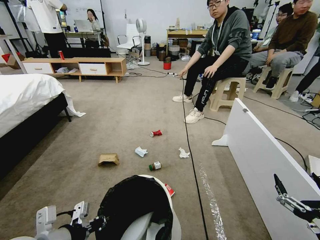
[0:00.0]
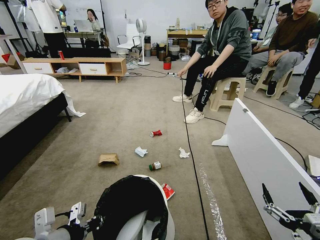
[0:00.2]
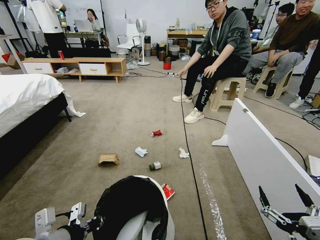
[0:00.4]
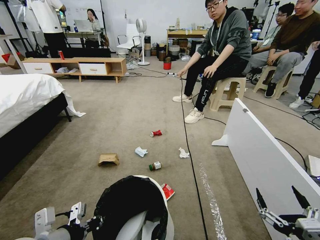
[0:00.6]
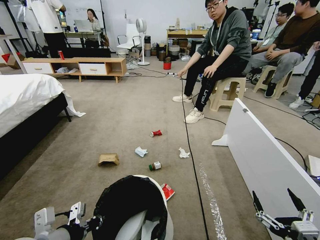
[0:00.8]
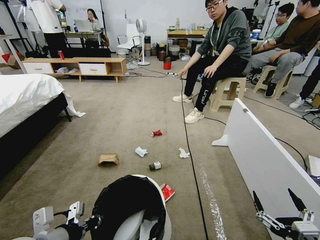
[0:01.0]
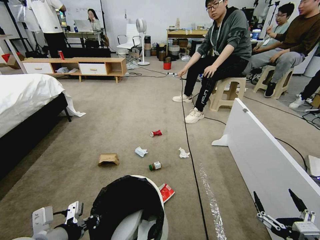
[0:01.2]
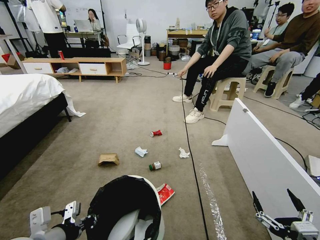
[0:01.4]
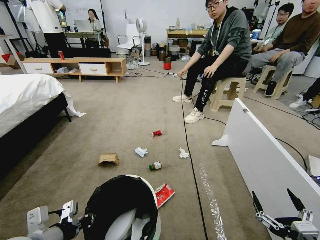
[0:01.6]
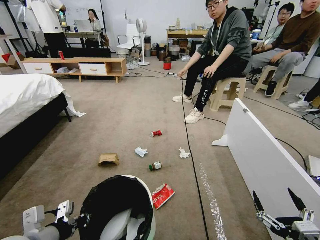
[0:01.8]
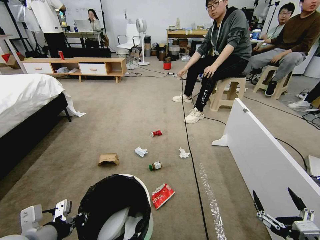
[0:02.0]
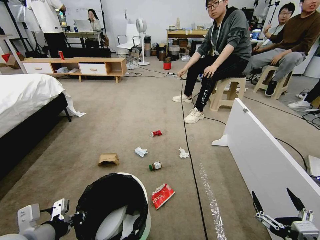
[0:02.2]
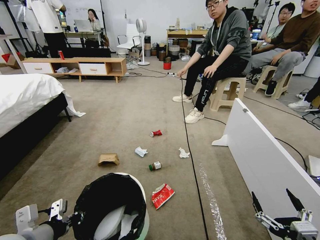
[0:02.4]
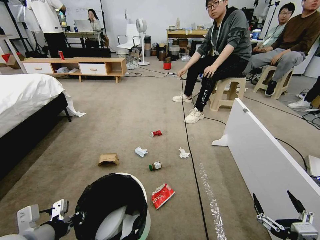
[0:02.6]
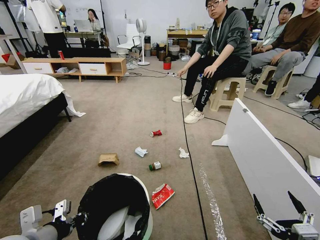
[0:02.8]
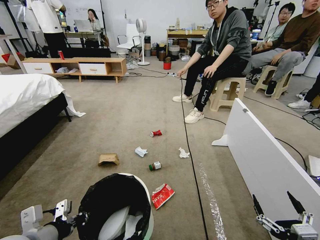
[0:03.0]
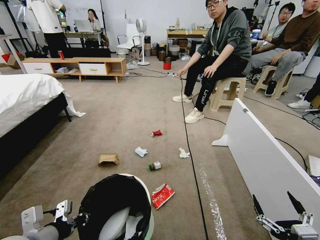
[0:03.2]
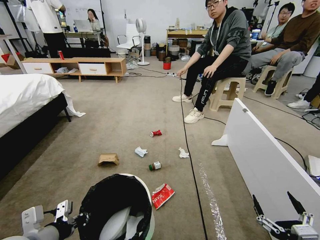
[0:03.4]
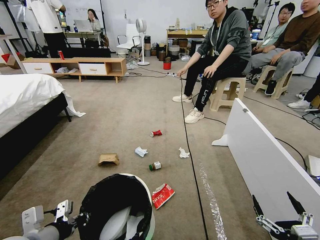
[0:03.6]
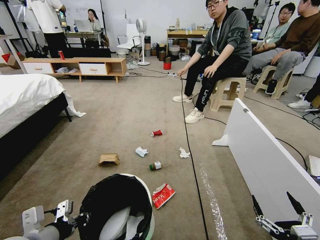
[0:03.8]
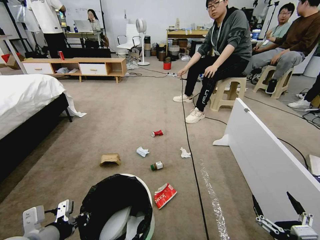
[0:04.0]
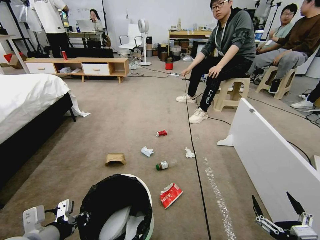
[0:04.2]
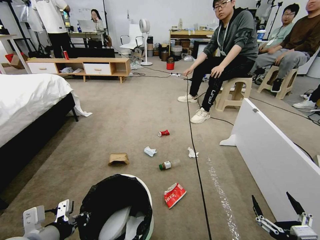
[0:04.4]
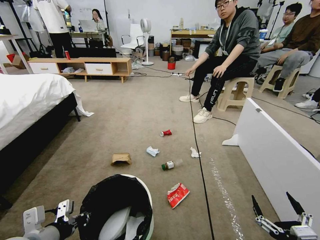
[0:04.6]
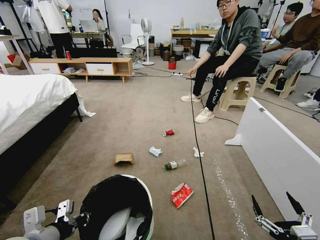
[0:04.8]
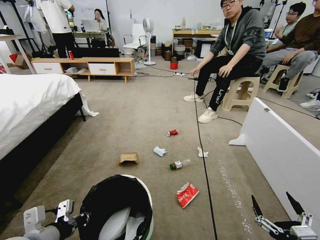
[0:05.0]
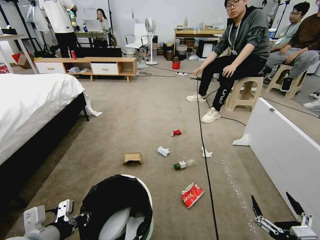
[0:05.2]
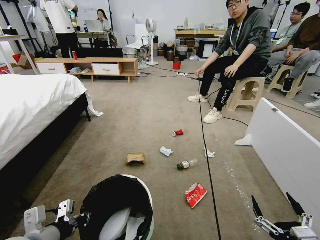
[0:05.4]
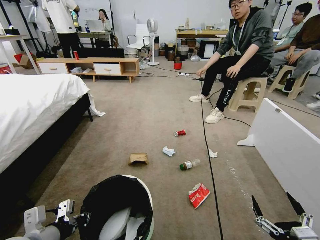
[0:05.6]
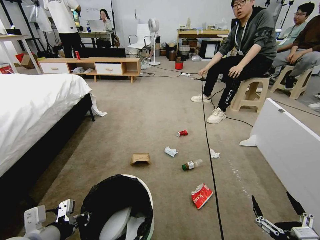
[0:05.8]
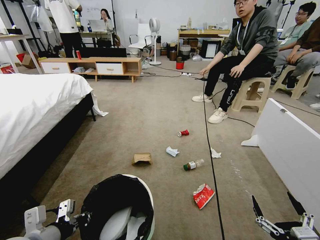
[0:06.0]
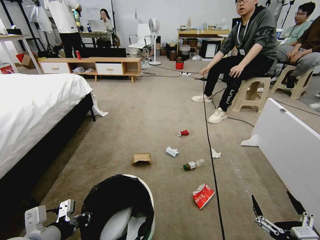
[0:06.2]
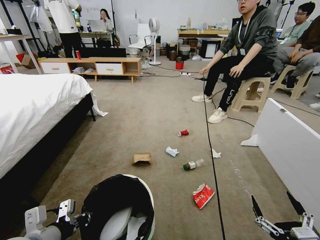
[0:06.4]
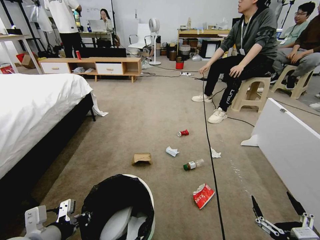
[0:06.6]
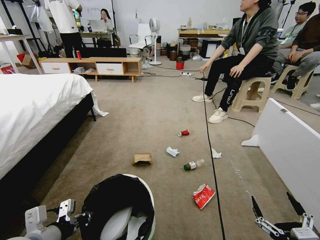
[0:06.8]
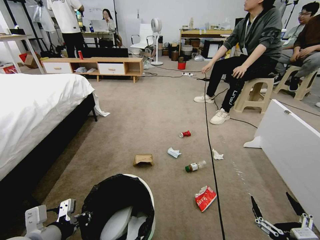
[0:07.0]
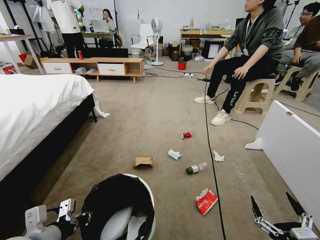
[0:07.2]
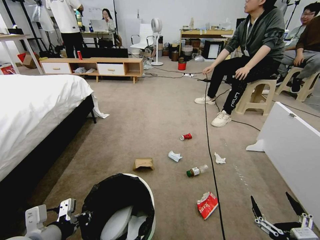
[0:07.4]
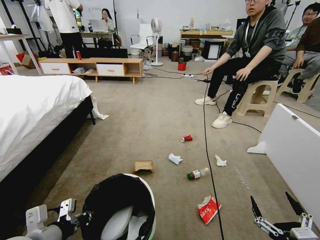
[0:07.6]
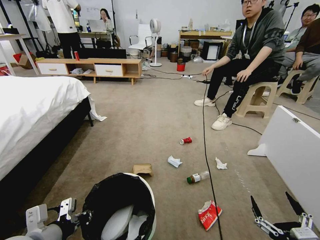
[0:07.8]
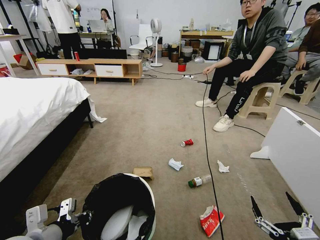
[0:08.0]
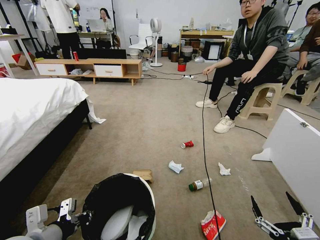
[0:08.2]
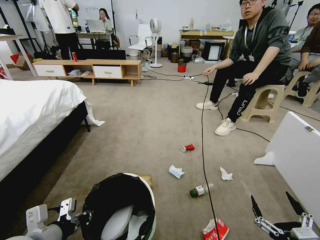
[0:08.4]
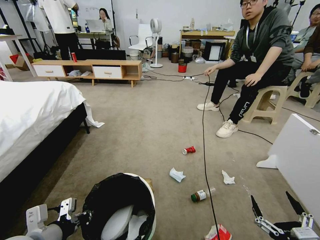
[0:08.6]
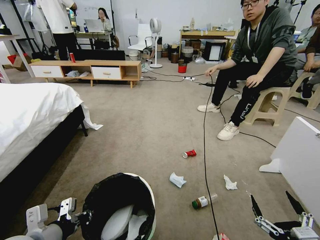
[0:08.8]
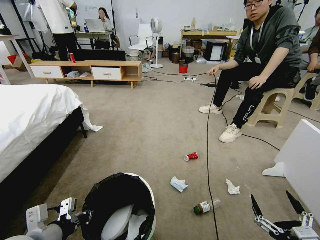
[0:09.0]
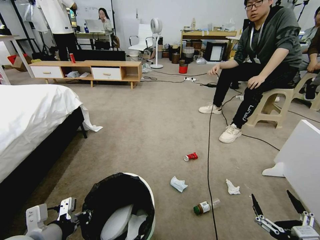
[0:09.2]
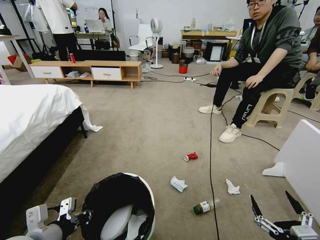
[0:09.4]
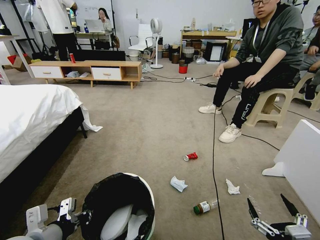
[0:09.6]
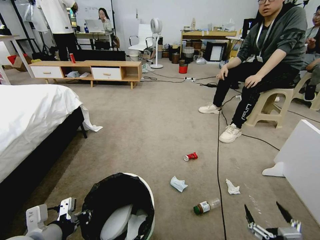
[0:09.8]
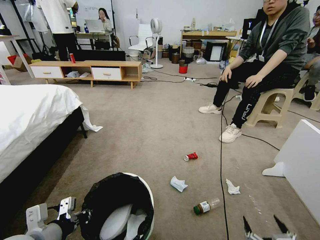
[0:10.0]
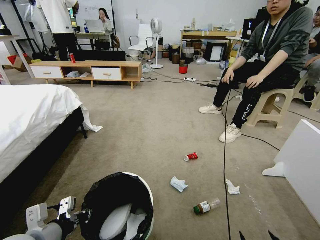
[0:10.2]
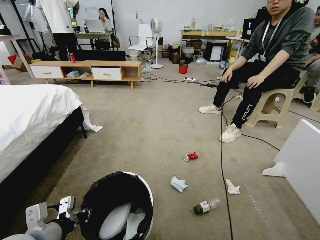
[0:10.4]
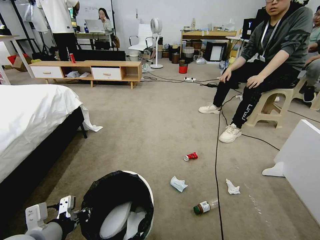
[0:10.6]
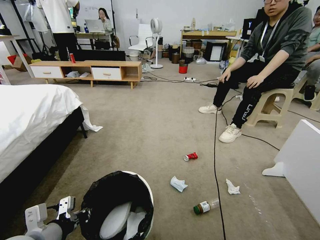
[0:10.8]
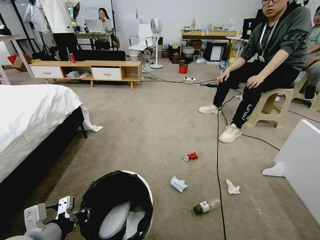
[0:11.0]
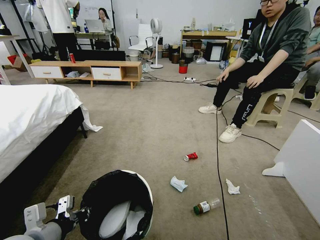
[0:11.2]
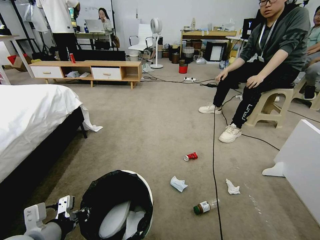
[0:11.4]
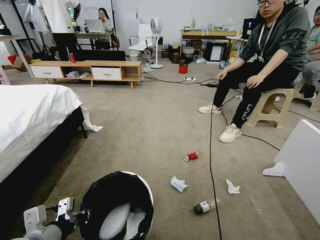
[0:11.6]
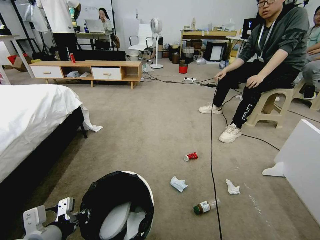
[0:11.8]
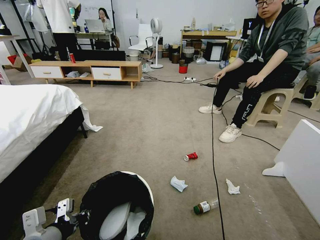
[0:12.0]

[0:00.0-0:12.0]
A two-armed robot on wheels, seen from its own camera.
Task of the whole recording: Pick up the trash bin and place the garbage on the floor into it.
0:01.6 to 0:03.0: The grippers stay close to where they were, moving slightly.
0:09.0 to 0:10.4: The right gripper changes place by roughly 5 cm.
0:10.4 to 0:12.0: The right gripper is displaced downward and forward by some 10 cm.

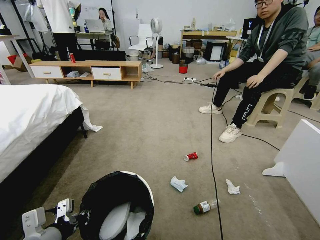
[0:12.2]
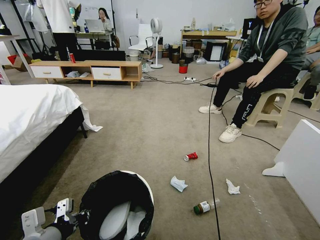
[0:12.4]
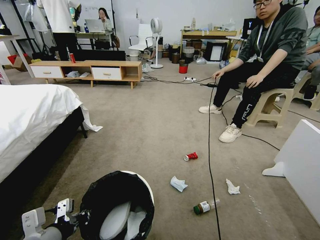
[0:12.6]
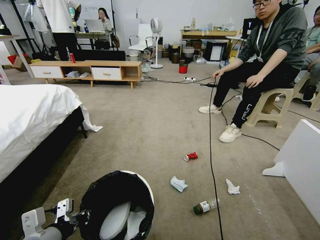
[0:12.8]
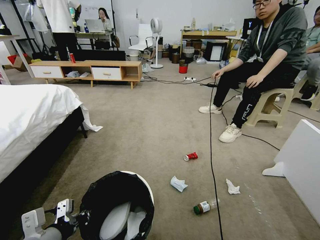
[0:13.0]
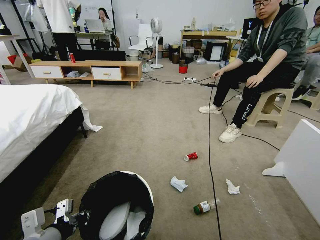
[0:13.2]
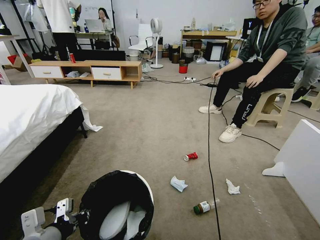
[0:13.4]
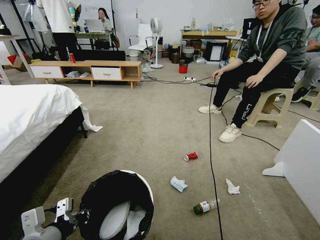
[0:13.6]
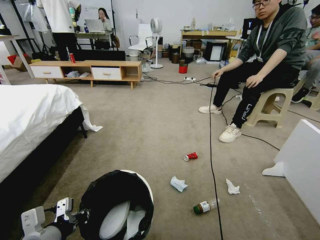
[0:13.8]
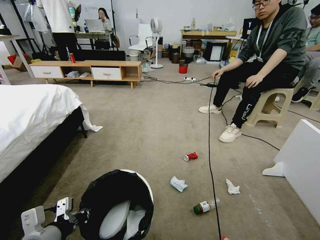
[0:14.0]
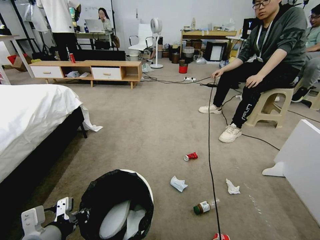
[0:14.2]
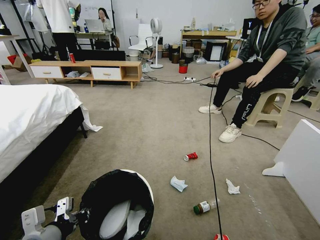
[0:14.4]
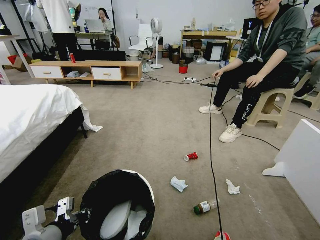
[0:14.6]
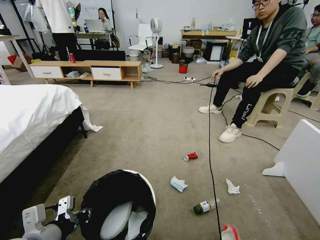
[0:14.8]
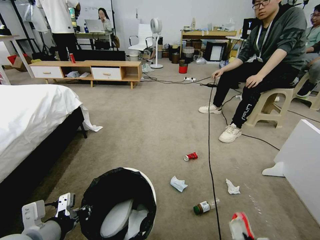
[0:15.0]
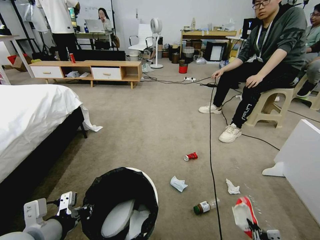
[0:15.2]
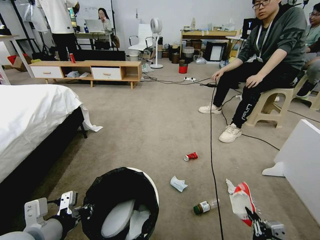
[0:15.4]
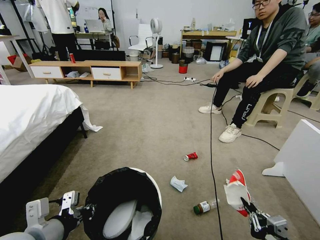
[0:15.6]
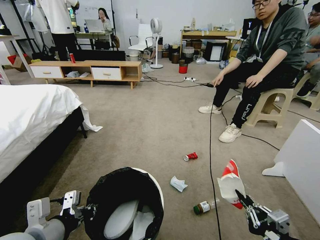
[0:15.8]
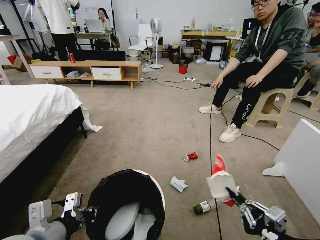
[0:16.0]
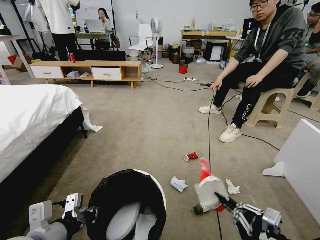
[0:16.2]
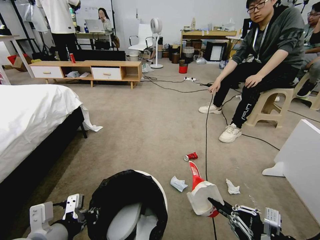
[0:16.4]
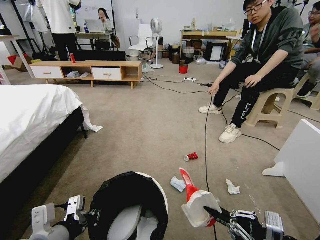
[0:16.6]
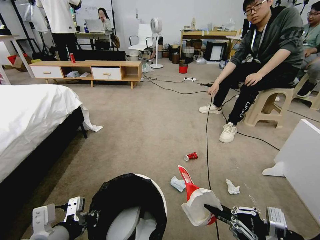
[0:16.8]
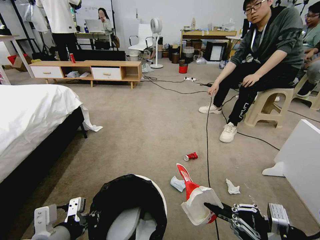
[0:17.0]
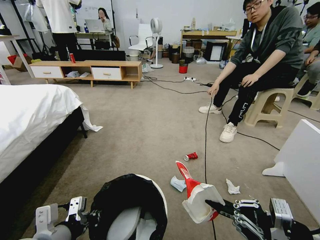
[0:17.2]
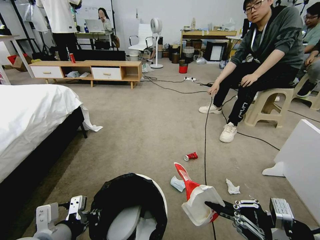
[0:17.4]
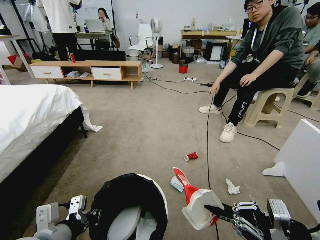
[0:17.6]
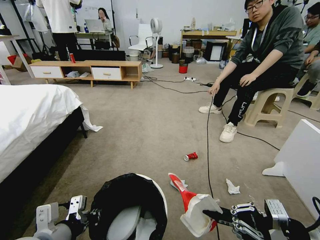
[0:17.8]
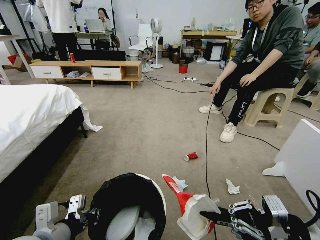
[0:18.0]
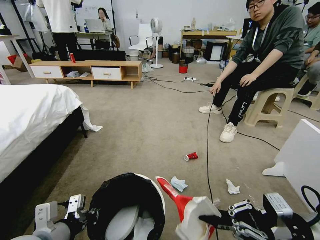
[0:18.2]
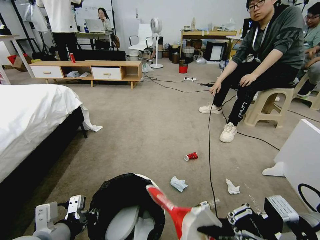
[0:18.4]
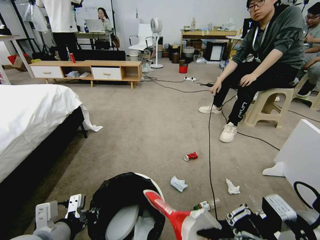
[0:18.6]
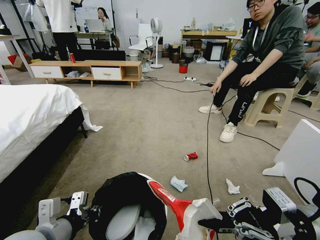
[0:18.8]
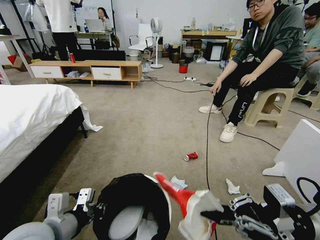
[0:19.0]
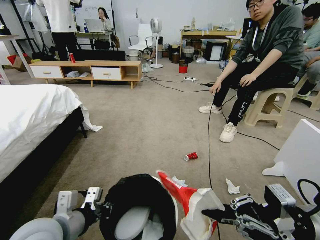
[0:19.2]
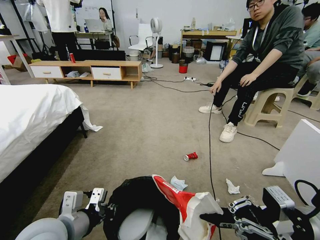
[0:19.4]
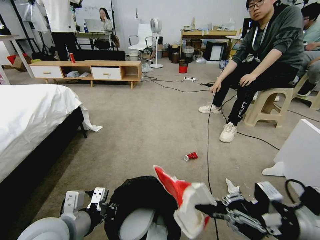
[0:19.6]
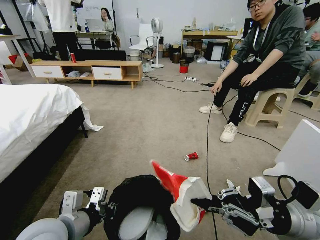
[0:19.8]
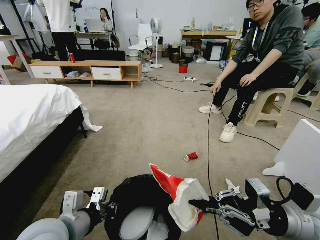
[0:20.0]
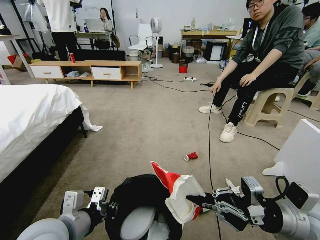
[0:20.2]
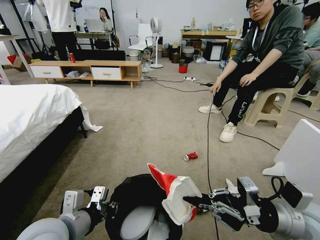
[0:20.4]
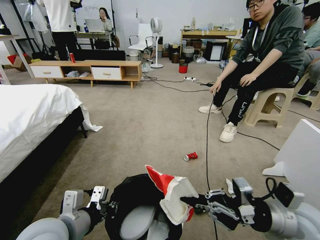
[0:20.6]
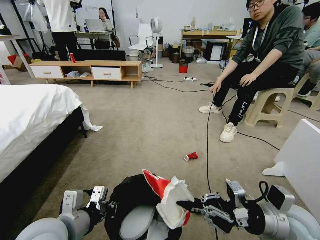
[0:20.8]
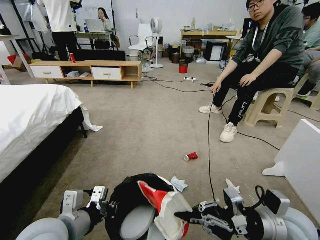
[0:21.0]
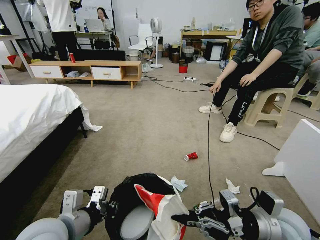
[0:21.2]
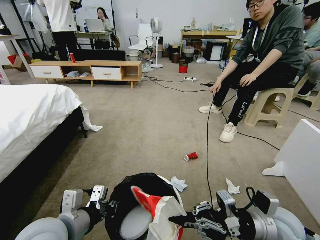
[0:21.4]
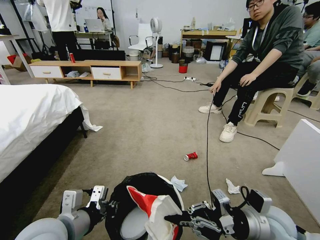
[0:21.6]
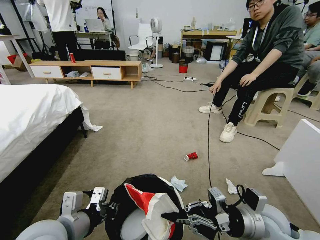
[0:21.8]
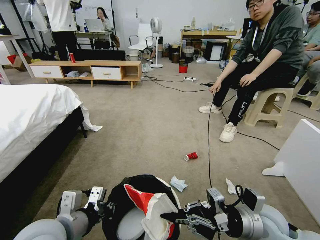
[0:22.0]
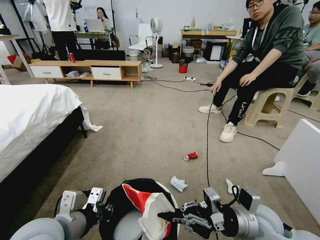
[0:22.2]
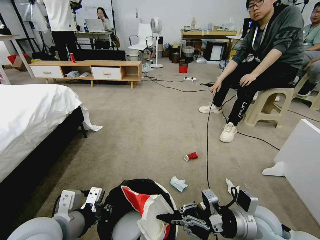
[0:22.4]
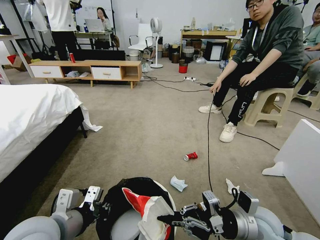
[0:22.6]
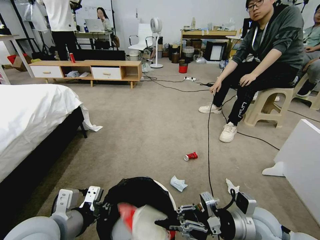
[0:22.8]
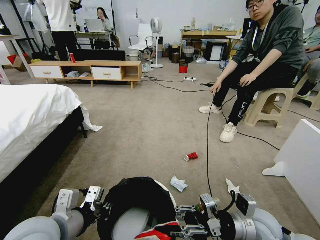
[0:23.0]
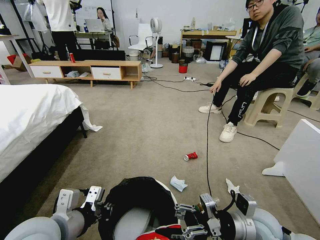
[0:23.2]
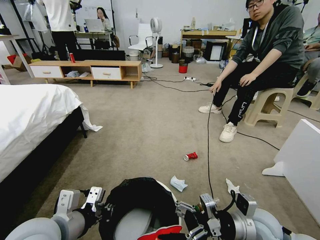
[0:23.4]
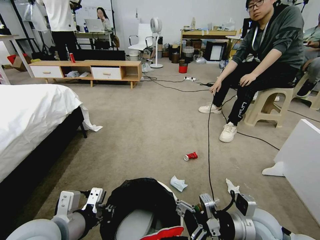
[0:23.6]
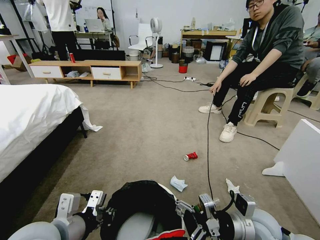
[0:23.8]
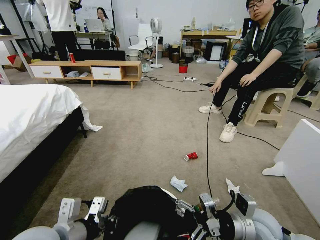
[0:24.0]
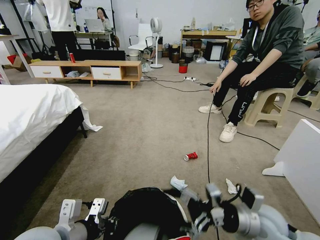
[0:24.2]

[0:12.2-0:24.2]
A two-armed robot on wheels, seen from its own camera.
Task of the whole recording: Pick up the trash bin and place the garbage on the floor into it.
0:12.2 to 0:13.8: The right gripper moves about 5 cm, and closes its fingers.
0:13.8 to 0:15.2: The right gripper shifts roughly 15 cm upward and to the right, and closes its fingers.
0:15.2 to 0:16.6: The right gripper is displaced upward by some 15 cm.
0:16.6 to 0:18.2: The right gripper shifts some 10 cm forward and upward.
0:19.8 to 0:21.2: The right gripper shifts some 5 cm downward.
0:21.2 to 0:22.6: There are only small adjustments of the grippers.
0:22.6 to 0:24.2: The right gripper opens its fingers.
